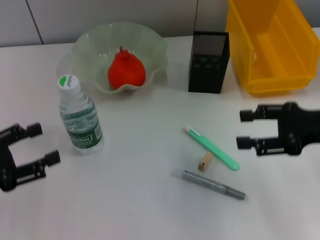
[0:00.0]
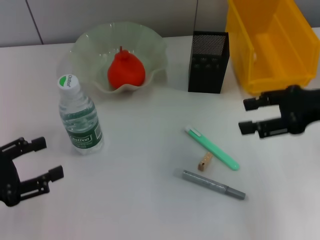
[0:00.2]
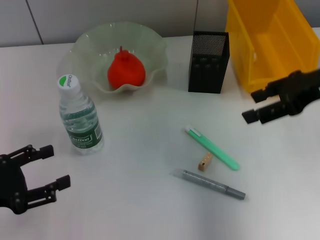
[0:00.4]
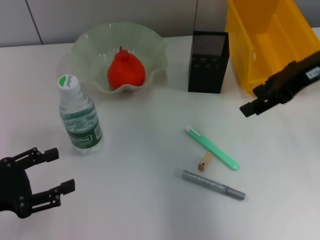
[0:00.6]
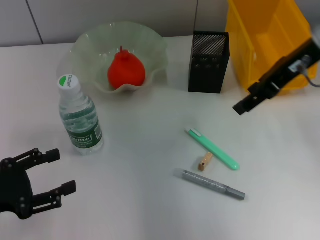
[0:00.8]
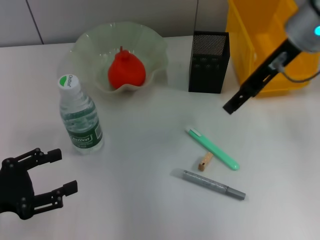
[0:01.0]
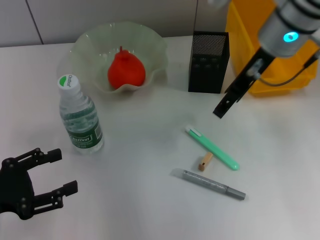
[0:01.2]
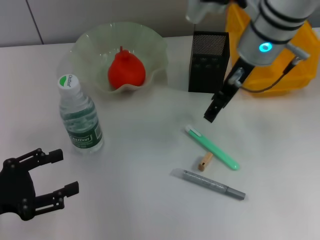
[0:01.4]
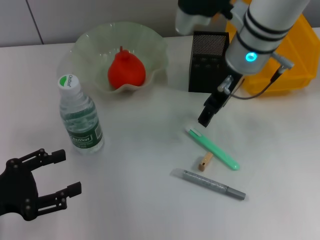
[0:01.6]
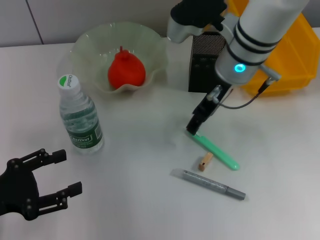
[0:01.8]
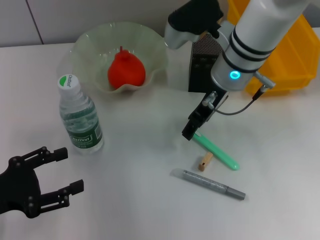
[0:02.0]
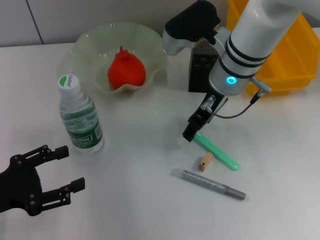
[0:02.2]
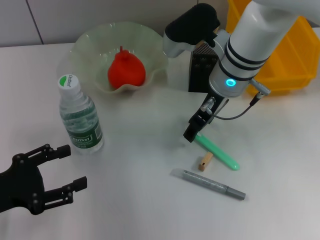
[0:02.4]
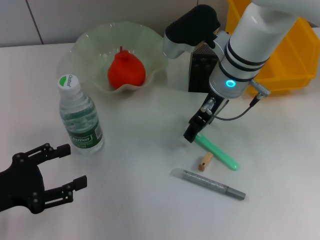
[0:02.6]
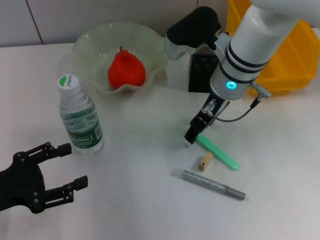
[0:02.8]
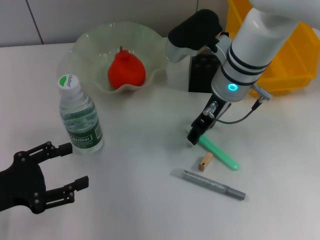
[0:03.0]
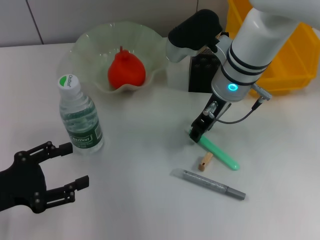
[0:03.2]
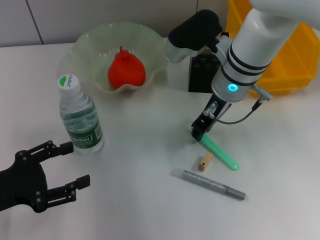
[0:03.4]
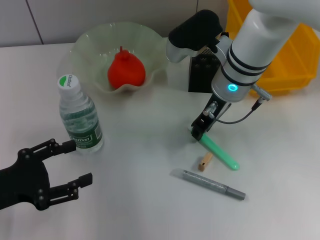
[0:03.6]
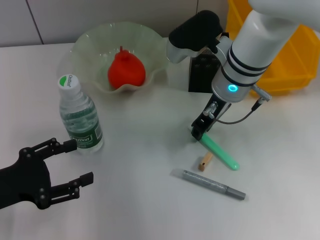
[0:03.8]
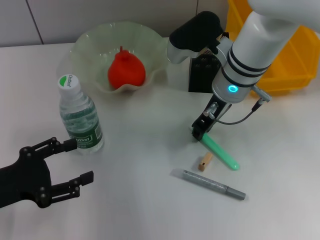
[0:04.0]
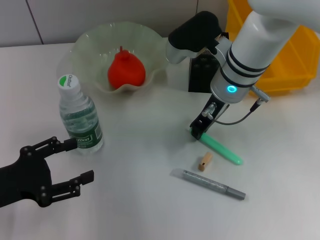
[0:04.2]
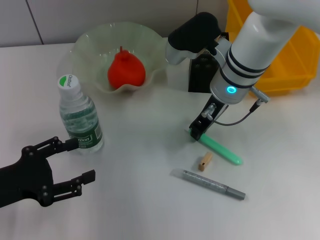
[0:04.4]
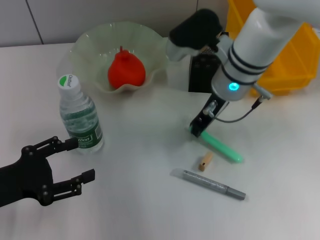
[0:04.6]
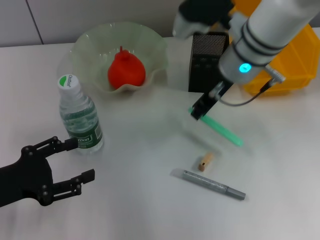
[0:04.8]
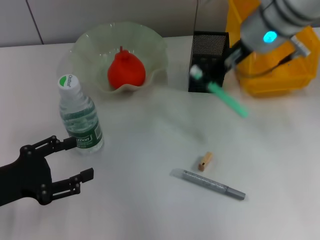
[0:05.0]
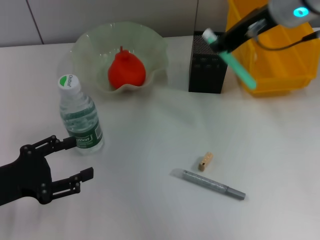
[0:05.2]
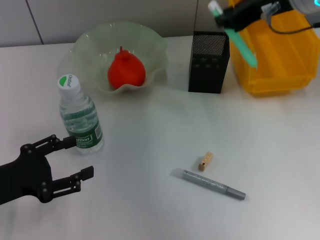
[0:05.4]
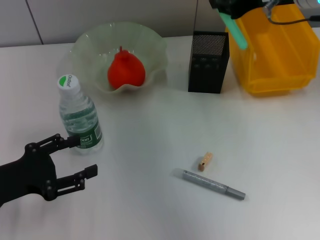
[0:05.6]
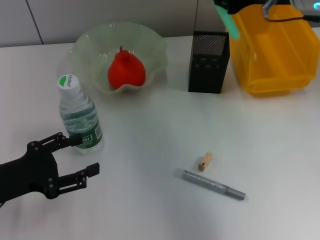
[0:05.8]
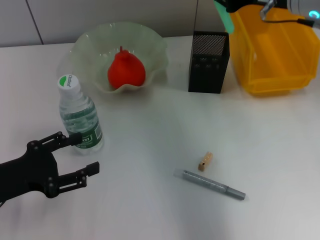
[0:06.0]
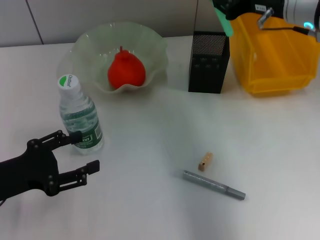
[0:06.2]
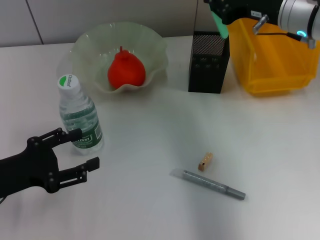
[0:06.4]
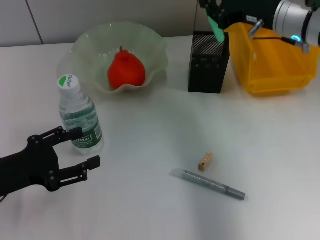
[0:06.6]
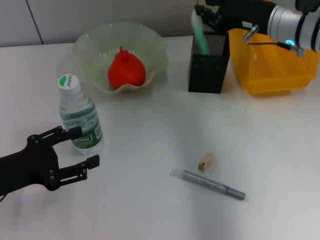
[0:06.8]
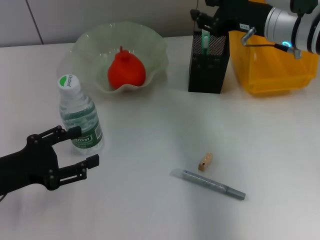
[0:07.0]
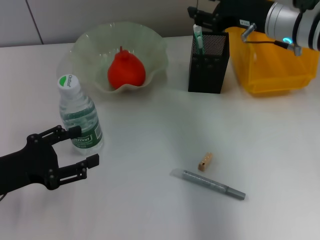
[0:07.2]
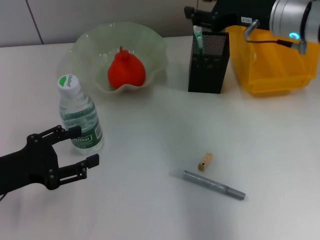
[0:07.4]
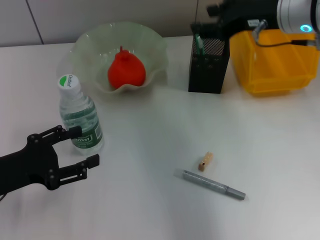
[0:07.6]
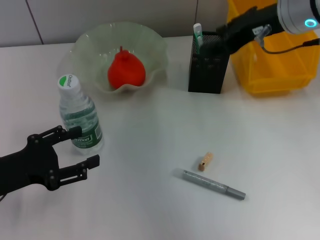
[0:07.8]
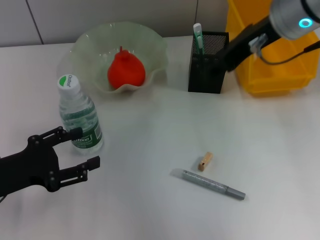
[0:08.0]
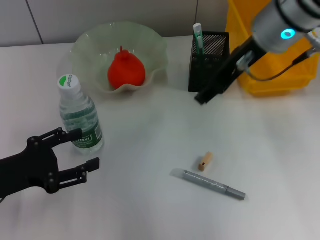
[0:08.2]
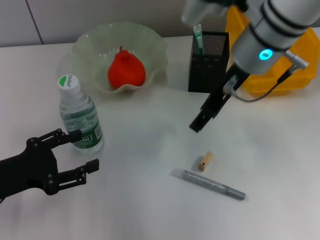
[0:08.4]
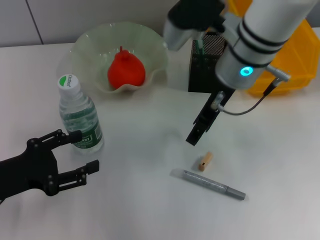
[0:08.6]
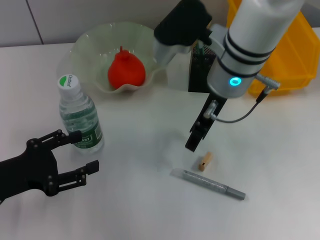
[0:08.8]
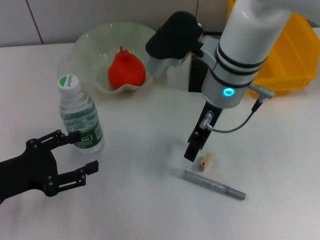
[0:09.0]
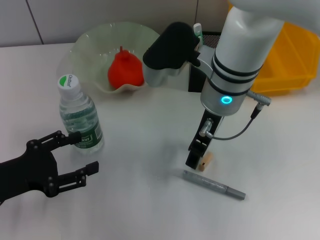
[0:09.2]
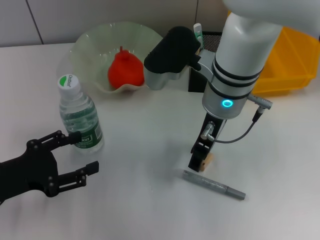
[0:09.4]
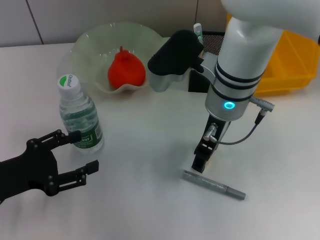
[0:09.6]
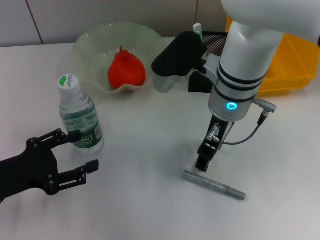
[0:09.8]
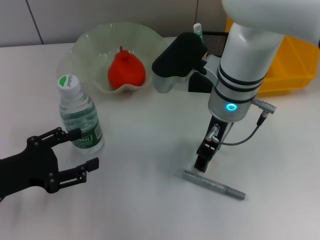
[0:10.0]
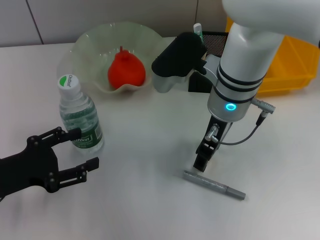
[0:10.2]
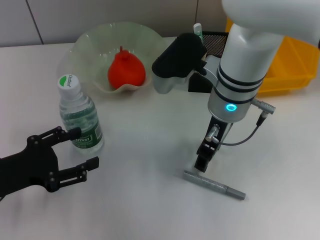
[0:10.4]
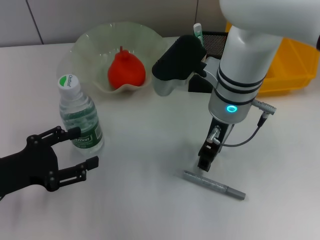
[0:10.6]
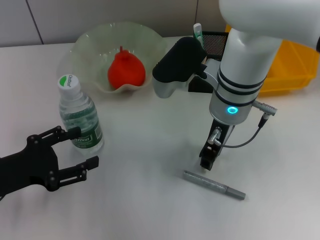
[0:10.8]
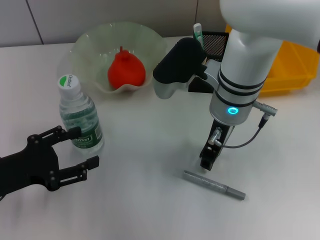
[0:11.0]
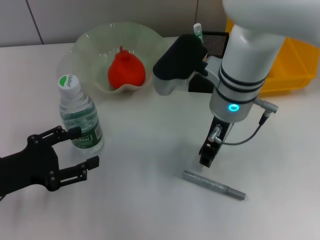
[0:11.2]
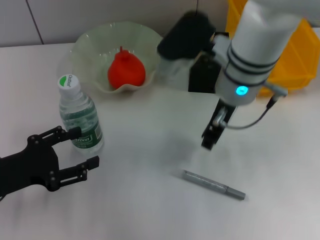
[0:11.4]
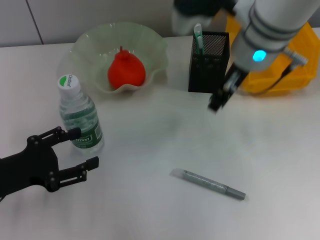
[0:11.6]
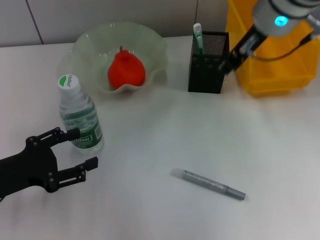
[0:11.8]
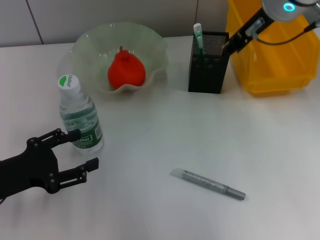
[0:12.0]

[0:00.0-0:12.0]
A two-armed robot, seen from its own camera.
Step, 0:00.0 to 0:04.2: Grab the blue utility knife with the right hand.
Step, 0:04.4 to 0:07.2: Place the blue utility knife into the pen holder with the right hand.
Step, 0:07.4 to 0:10.6: Grab the eraser with the right hand.
0:00.0 to 0:01.6: The right gripper moves to the left and forward, roughly 20 cm.
0:01.6 to 0:03.0: The grippers make only small movements.
0:03.0 to 0:04.4: The right gripper closes up.
0:04.4 to 0:06.0: The right gripper moves to the right and upward, about 15 cm.
0:06.0 to 0:07.6: The right gripper opens.
0:07.6 to 0:09.0: The right gripper heads to the left, covering approximately 10 cm.
0:09.0 to 0:10.4: There are only small adjustments of the grippers.
0:10.4 to 0:12.0: The right gripper shifts roughly 15 cm upward and to the right.

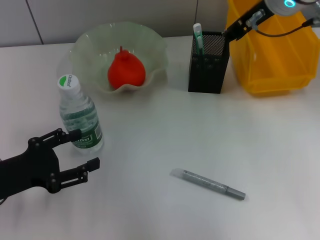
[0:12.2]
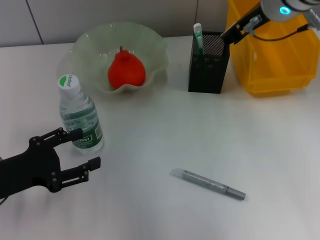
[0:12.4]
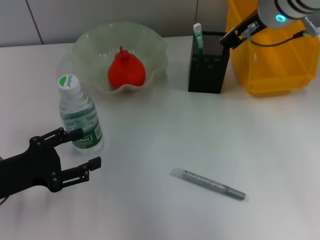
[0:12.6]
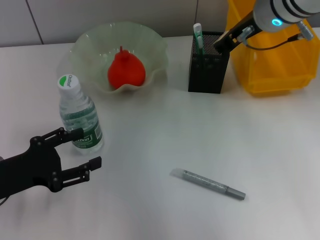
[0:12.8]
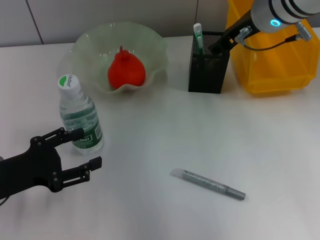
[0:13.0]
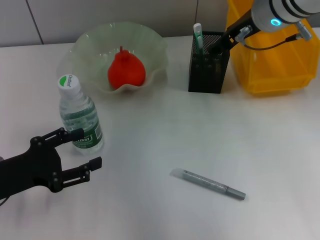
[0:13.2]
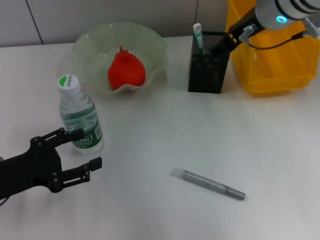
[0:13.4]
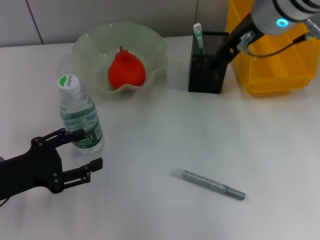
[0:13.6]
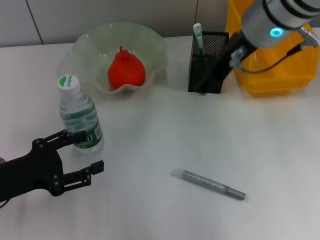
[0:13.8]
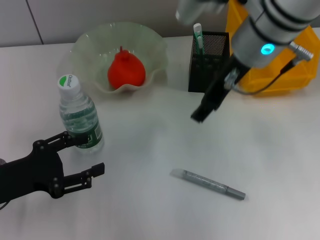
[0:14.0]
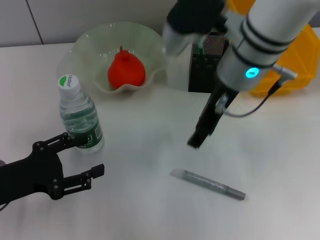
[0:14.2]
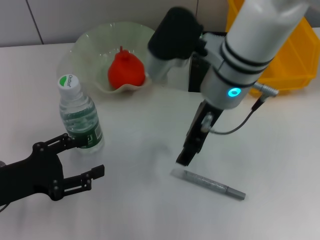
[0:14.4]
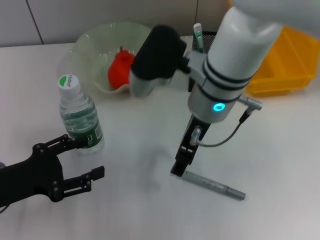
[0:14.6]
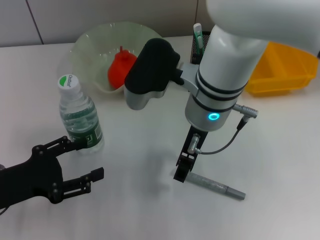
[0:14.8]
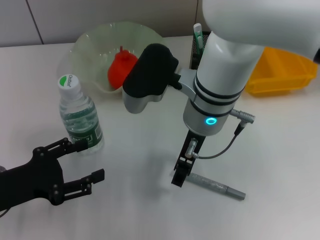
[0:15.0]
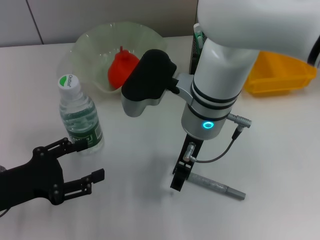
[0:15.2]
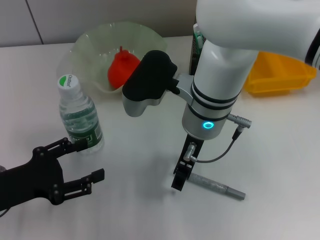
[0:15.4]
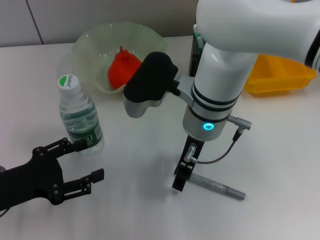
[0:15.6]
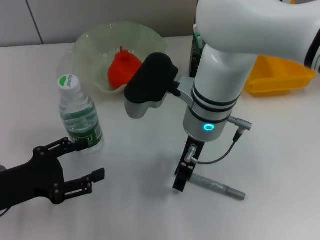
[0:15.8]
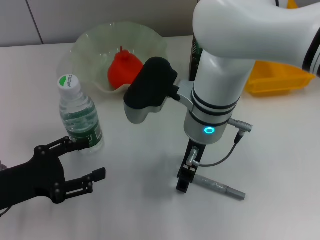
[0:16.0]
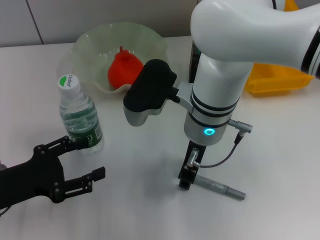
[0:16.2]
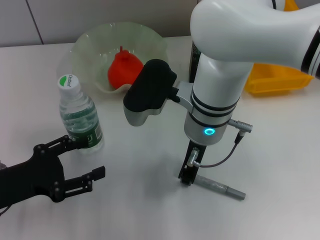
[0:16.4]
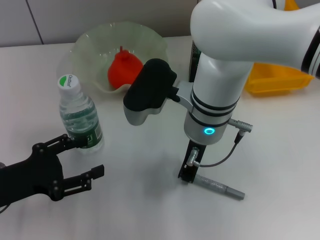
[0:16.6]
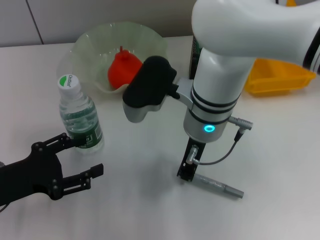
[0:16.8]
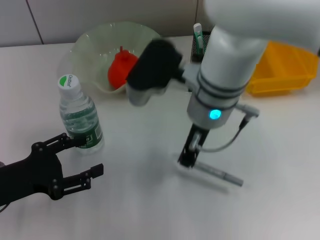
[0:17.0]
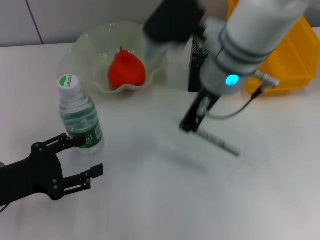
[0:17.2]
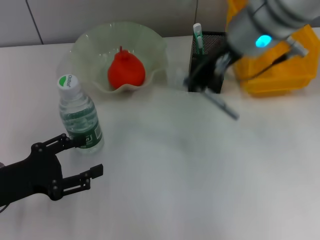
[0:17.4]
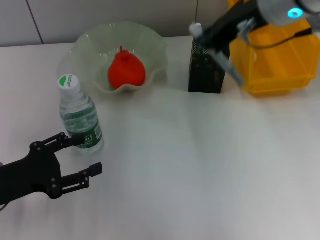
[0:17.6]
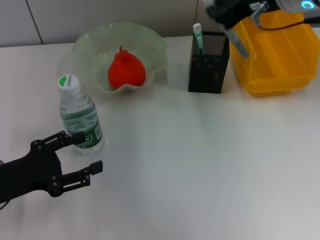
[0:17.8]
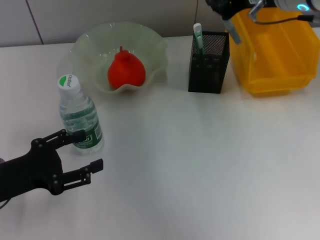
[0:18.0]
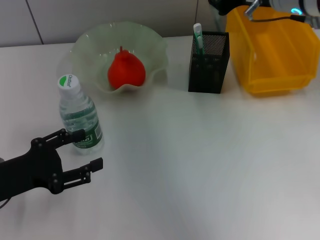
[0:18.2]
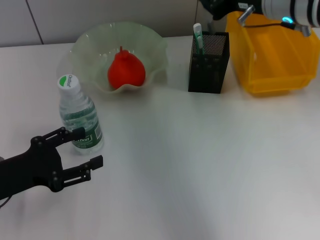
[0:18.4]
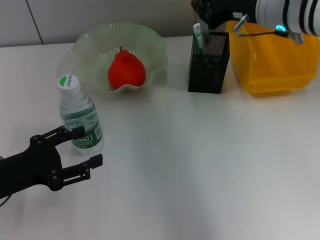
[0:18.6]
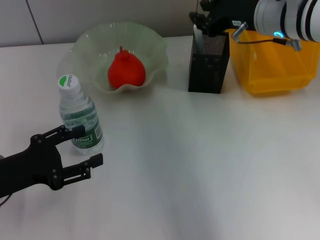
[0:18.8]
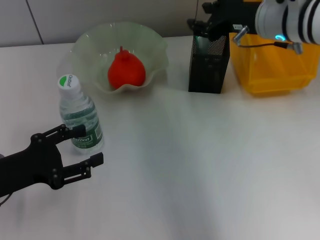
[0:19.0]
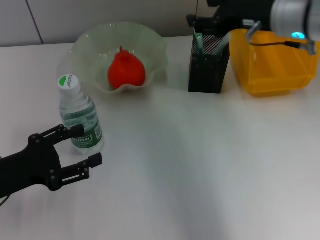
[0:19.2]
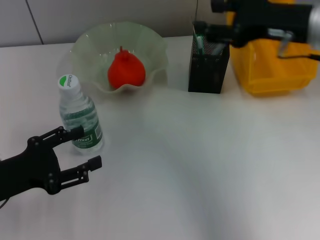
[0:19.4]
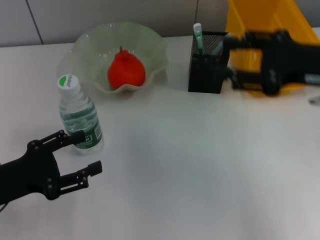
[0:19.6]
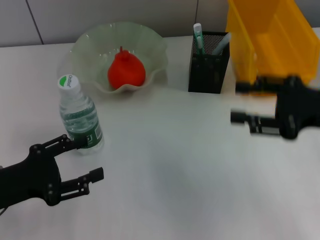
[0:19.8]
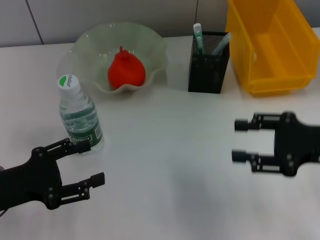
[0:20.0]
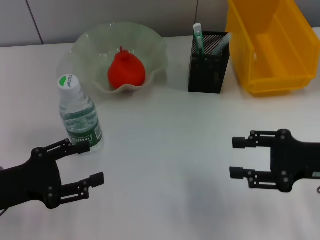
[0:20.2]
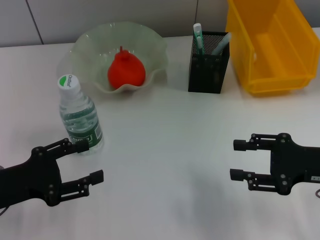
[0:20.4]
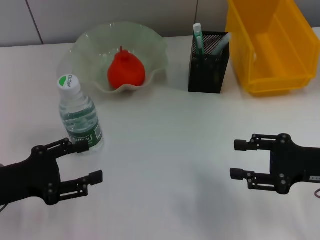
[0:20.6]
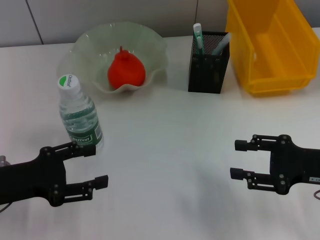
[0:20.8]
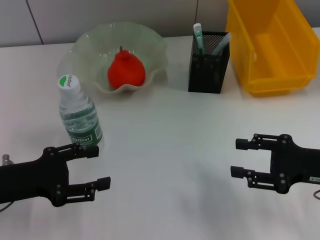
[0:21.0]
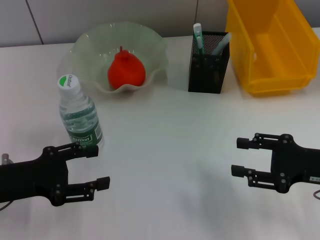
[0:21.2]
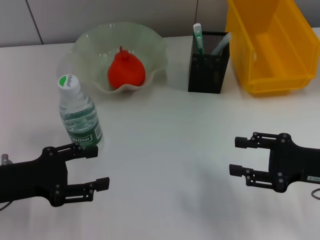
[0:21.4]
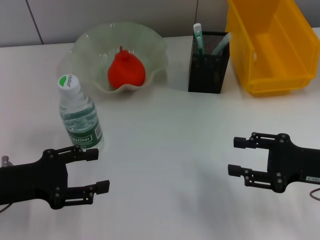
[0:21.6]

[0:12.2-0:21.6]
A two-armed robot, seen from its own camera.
Step, 0:13.6 to 0:16.4: Grab the gray glue with the right hand.
Step, 0:16.6 to 0:19.2: Place the gray glue into the pen holder with the right hand.
0:12.2 to 0:13.8: The right gripper changes place by approximately 5 cm, and opens its fingers.
0:13.8 to 0:15.4: The right gripper shifts about 15 cm downward and to the left.
0:15.4 to 0:17.0: The right gripper closes up.
0:17.0 to 0:18.4: The right gripper moves to the right, forward and upward, roughly 15 cm.
0:18.4 to 0:20.0: The right gripper heads backward, to the right and downward, covering roughly 20 cm, and opens up.
0:20.0 to 0:21.6: The right gripper changes place by roughly 5 cm.

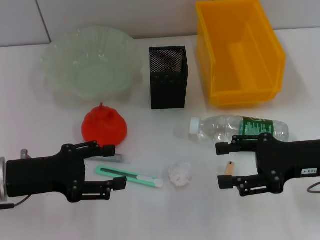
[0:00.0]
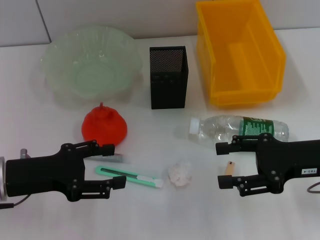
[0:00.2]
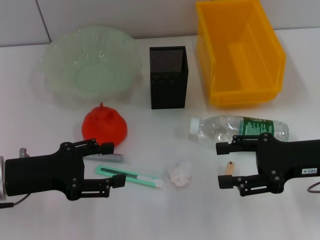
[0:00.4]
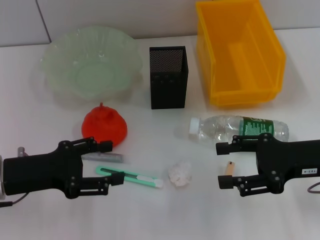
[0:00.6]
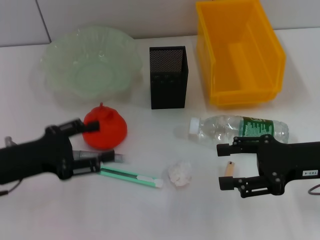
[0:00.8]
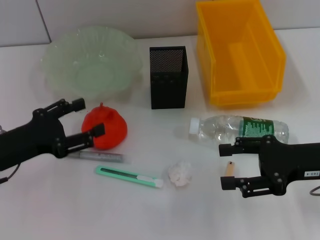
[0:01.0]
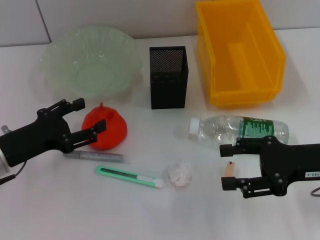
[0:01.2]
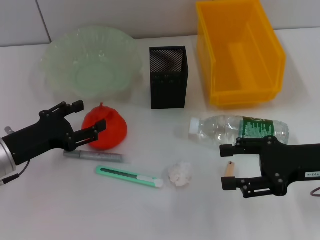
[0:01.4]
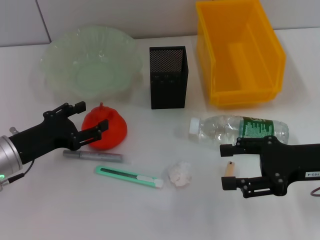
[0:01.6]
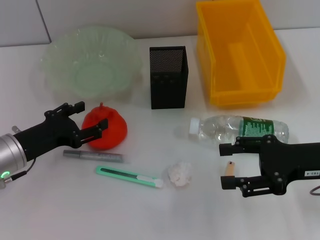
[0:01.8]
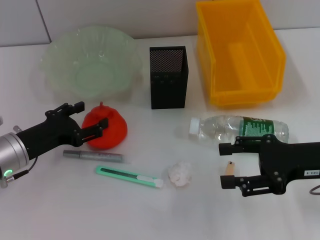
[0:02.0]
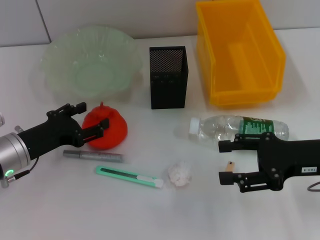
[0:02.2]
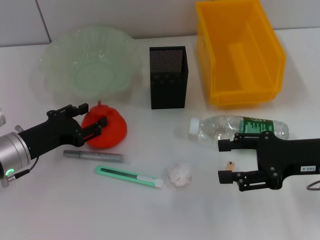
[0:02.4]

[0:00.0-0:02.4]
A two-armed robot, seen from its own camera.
0:01.2 to 0:02.4: The grippers stay close to where they were, moving slightly.
